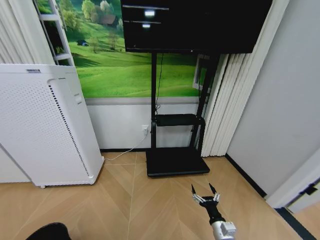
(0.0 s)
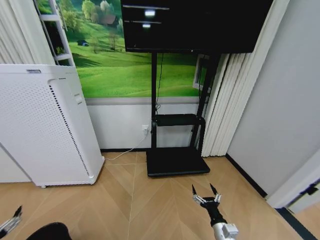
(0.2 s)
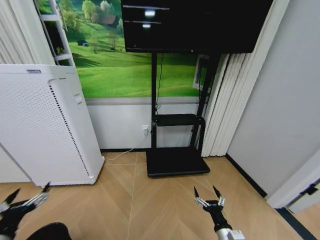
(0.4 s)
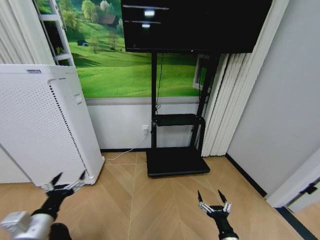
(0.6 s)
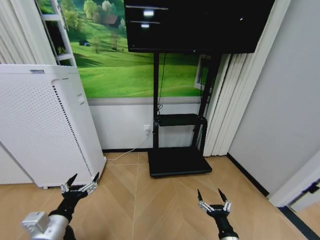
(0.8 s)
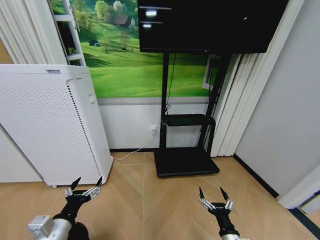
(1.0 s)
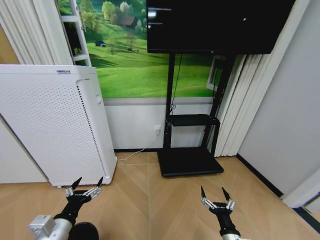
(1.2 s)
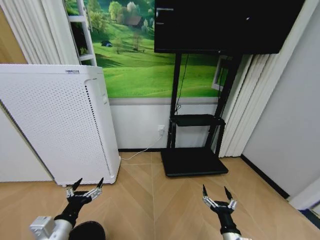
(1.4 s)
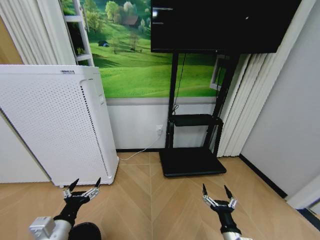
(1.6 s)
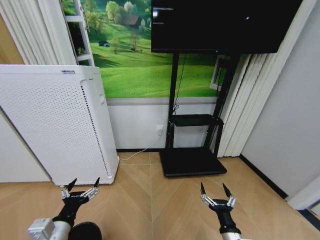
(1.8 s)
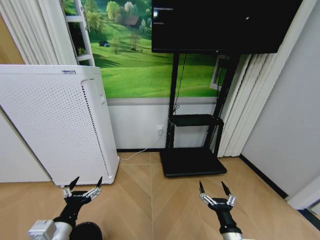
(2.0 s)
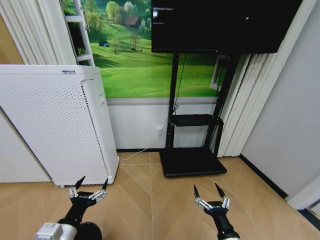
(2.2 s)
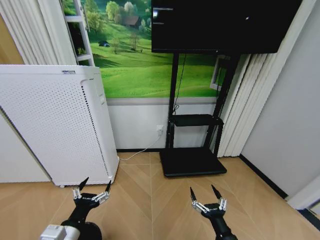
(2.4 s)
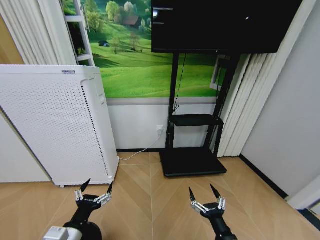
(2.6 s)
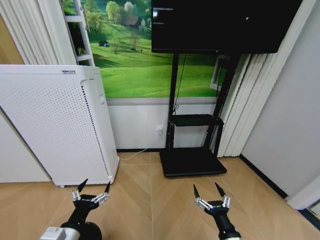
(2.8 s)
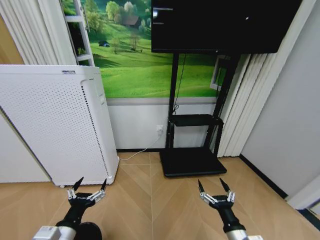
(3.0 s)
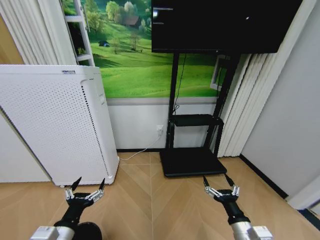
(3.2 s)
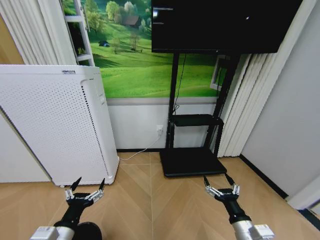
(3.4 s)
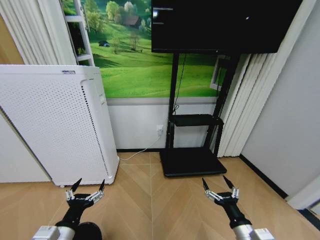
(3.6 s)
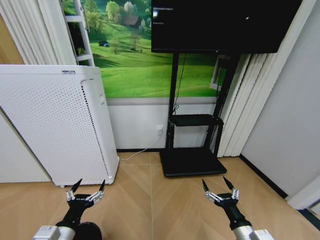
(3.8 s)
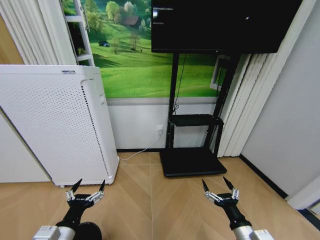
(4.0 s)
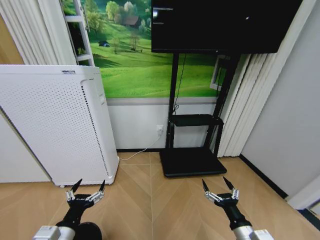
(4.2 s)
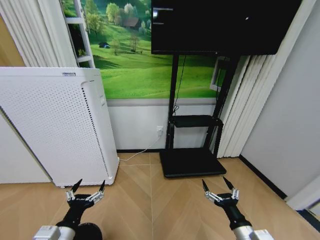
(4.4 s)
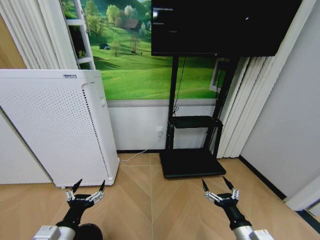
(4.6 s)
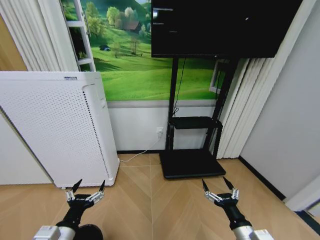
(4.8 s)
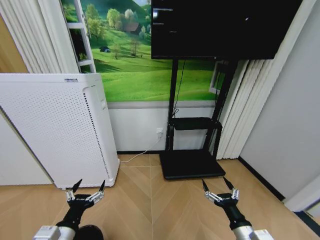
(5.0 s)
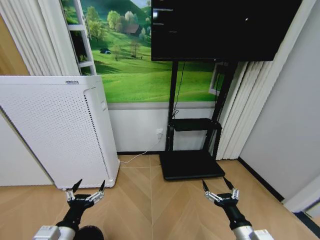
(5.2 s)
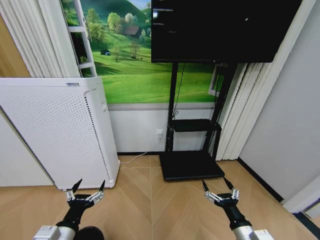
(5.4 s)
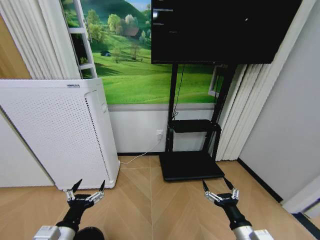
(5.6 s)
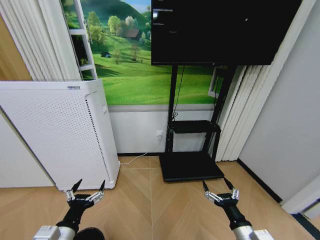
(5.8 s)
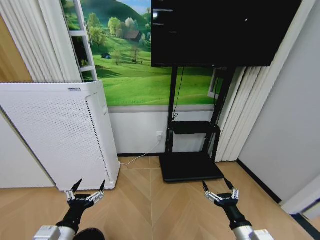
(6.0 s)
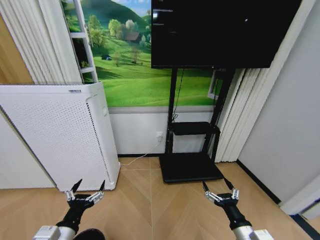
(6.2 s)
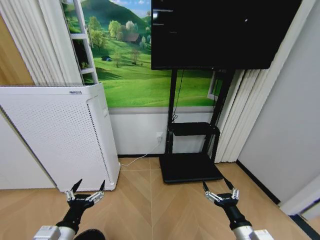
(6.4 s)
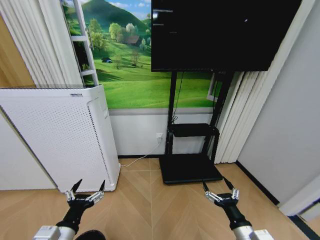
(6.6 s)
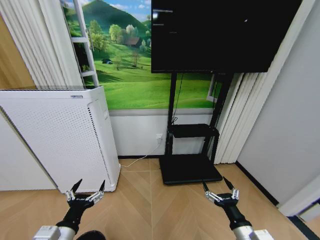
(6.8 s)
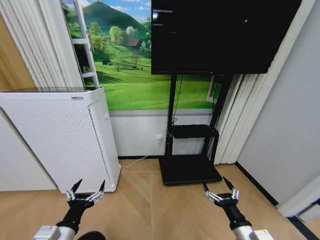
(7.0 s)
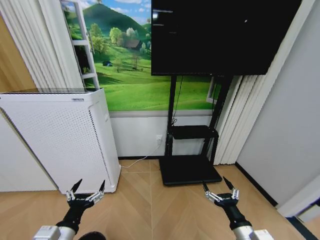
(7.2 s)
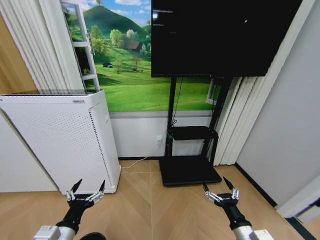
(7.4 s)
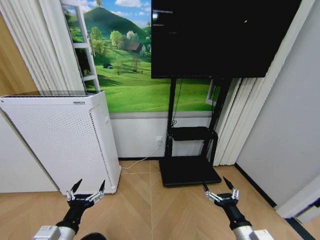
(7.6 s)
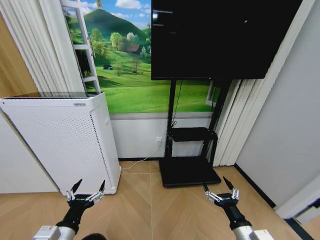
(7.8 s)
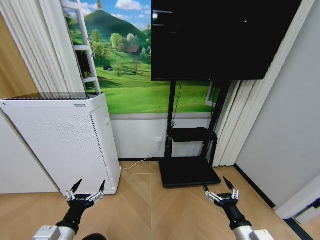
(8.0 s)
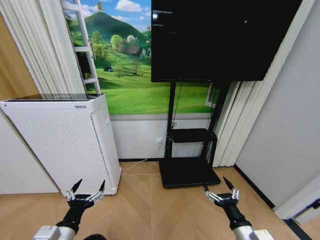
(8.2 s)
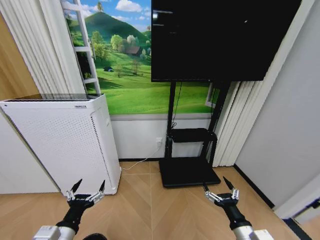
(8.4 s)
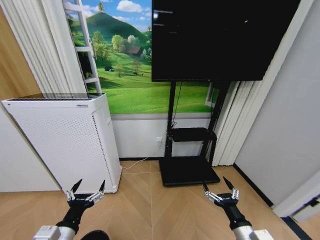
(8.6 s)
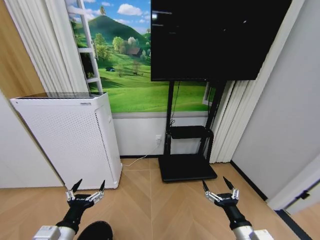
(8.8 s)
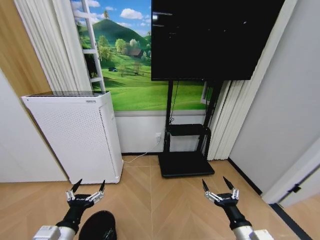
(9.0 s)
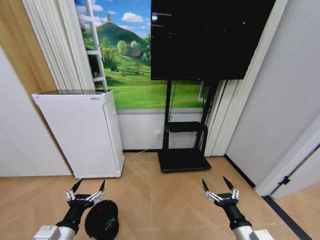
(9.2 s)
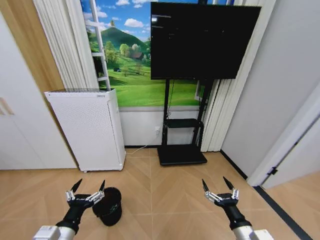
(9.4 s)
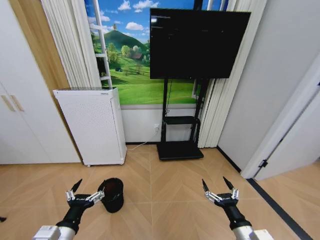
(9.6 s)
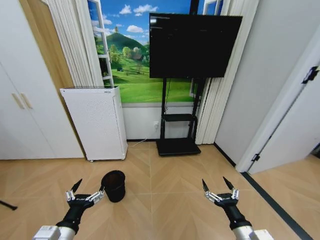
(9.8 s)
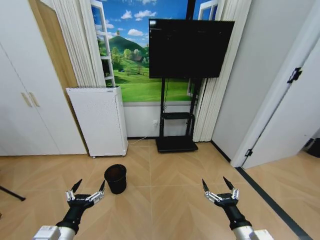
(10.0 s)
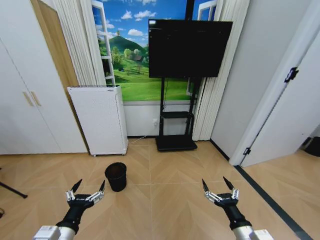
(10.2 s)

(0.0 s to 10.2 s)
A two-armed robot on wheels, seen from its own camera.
Task of the whole recording: Pick up the trash bin and place the garbage on the floor into it.
0.0 s - 1.4 s: The left gripper travels to the right, upward and forward by some 30 cm; the right gripper shifts by roughly 5 cm.
1.4 s - 3.0 s: The right gripper goes approximately 5 cm upward.
3.0 s - 4.4 s: There are only small adjustments of the grippers.
4.4 s - 7.2 s: The two grippers keep their place.

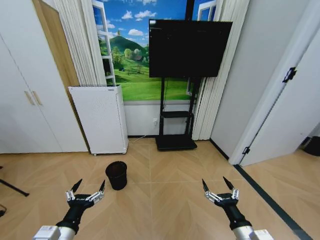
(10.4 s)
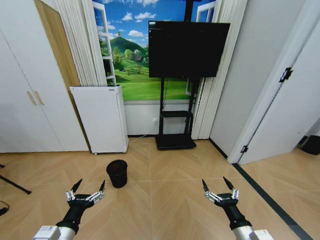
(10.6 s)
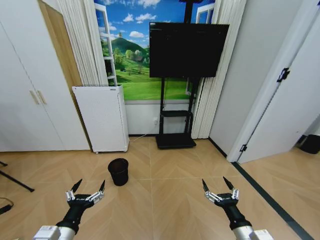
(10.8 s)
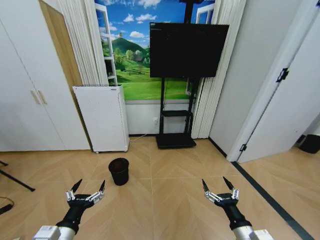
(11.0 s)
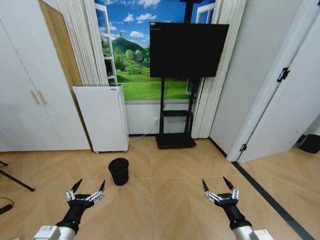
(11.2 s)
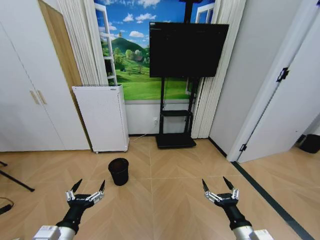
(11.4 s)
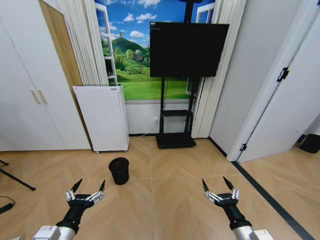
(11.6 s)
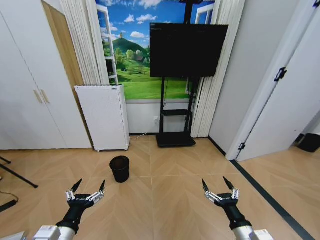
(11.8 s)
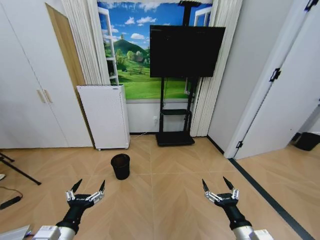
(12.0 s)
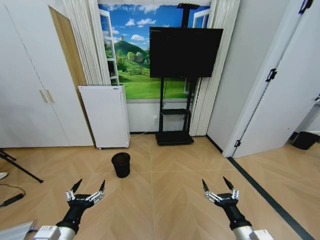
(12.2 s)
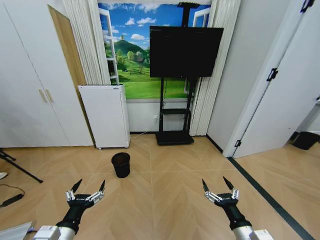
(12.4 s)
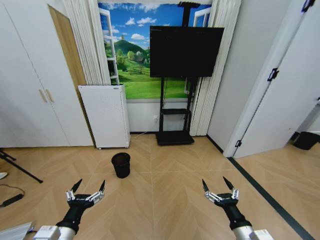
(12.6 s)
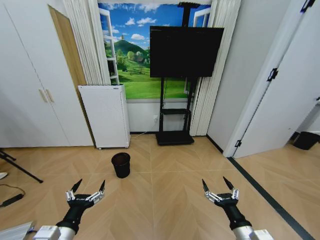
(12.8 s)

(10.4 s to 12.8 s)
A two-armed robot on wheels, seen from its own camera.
Task of the whole recording: Pick up the trash bin and place the garbage on the floor into it.
10.4 s - 12.8 s: Both grippers stay put.
